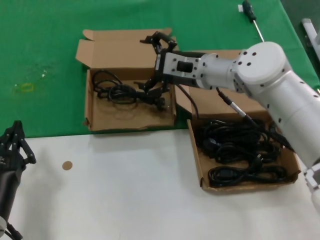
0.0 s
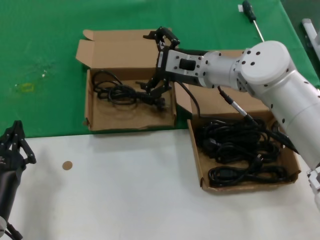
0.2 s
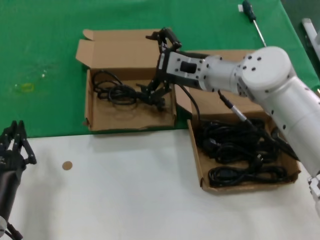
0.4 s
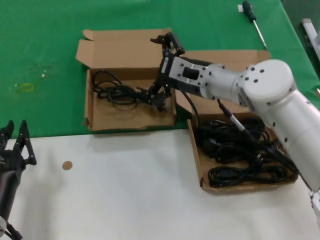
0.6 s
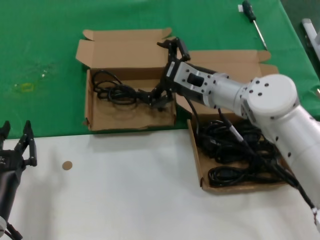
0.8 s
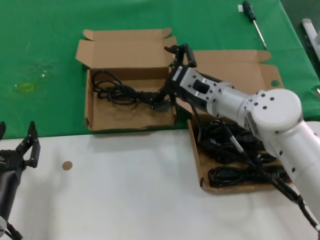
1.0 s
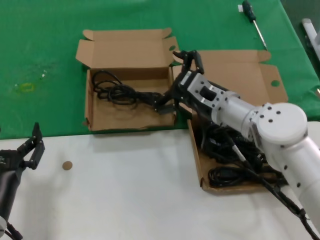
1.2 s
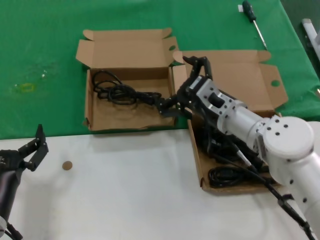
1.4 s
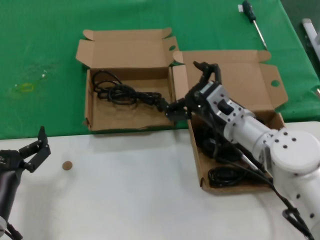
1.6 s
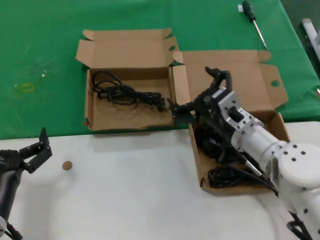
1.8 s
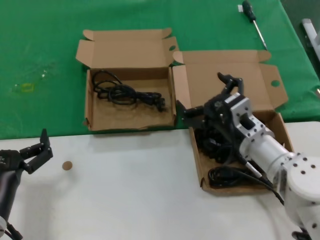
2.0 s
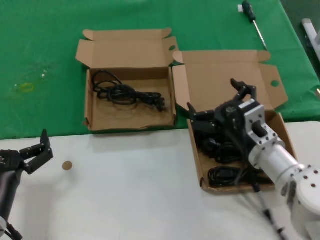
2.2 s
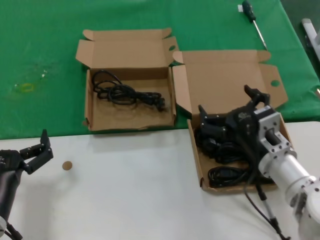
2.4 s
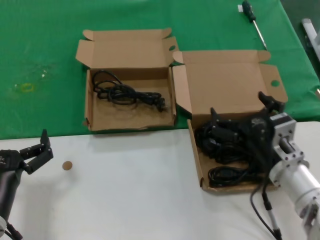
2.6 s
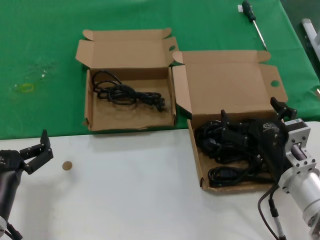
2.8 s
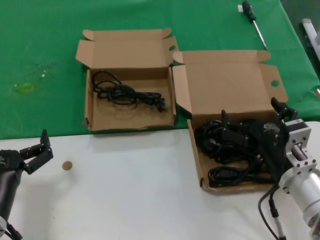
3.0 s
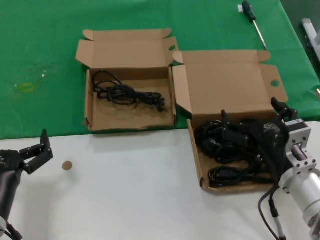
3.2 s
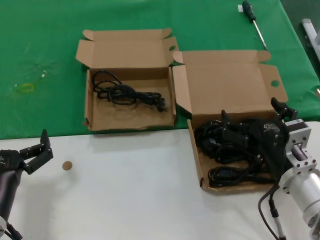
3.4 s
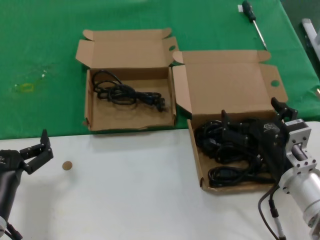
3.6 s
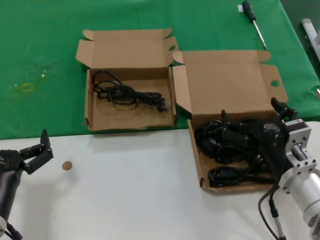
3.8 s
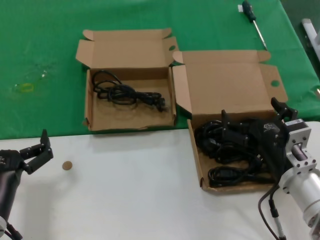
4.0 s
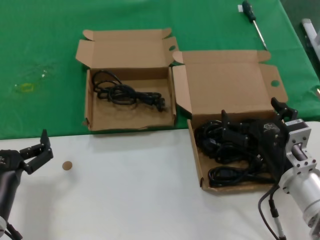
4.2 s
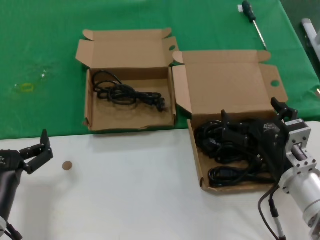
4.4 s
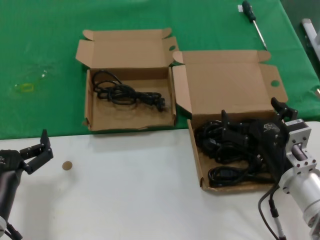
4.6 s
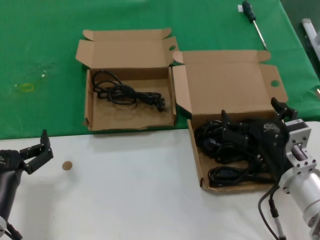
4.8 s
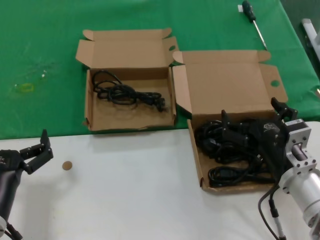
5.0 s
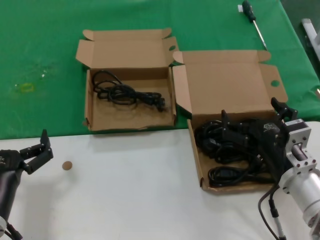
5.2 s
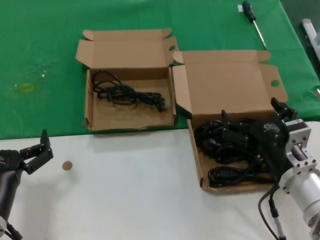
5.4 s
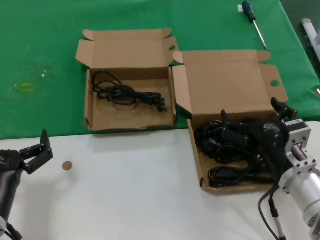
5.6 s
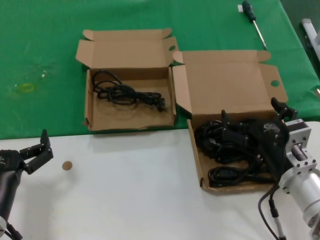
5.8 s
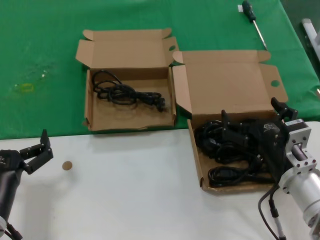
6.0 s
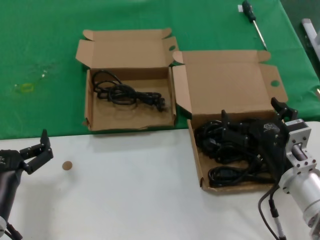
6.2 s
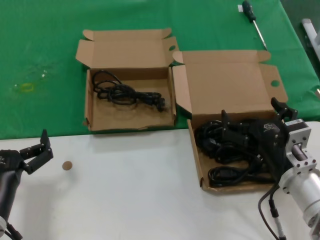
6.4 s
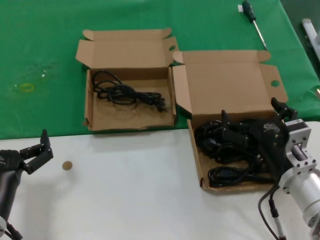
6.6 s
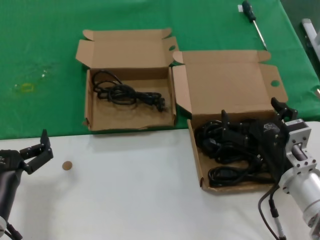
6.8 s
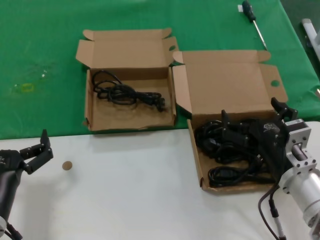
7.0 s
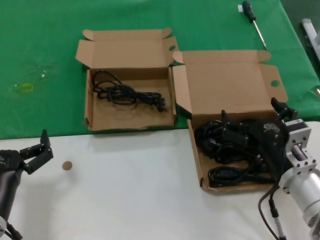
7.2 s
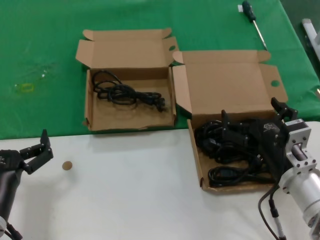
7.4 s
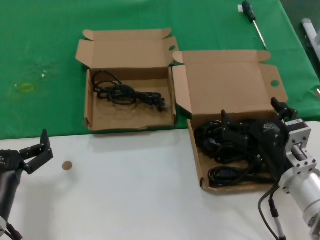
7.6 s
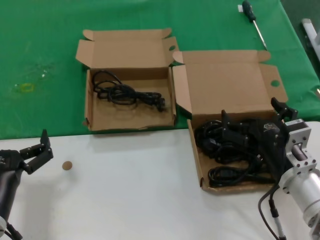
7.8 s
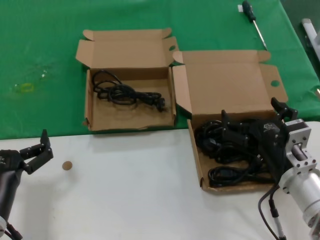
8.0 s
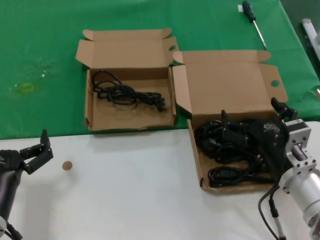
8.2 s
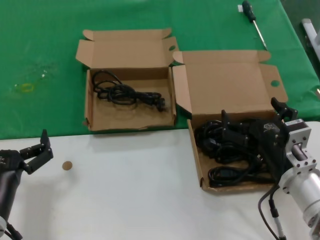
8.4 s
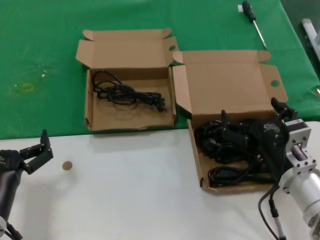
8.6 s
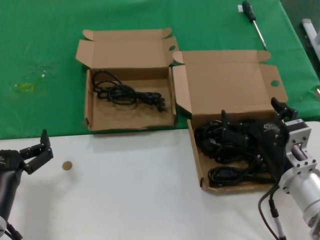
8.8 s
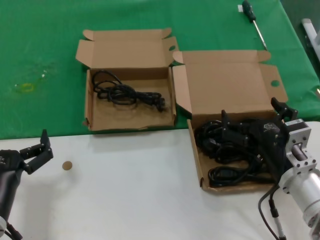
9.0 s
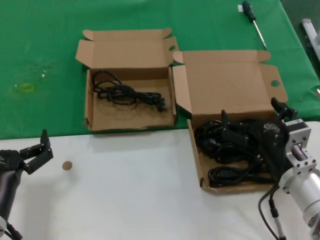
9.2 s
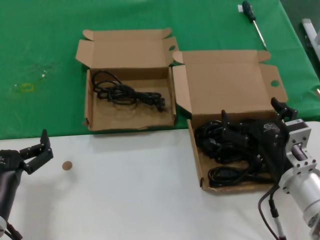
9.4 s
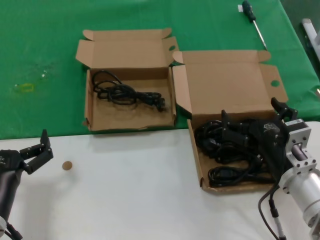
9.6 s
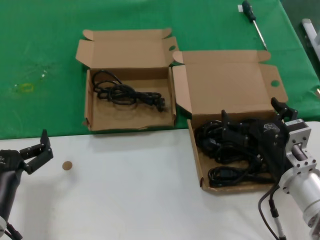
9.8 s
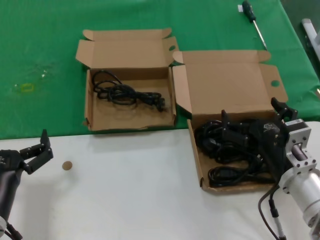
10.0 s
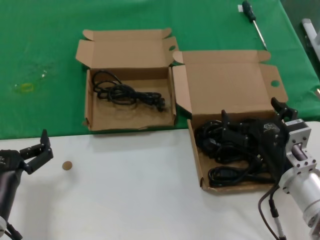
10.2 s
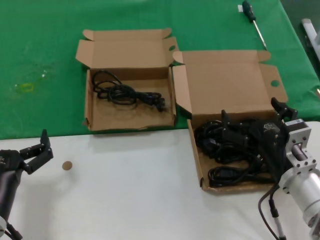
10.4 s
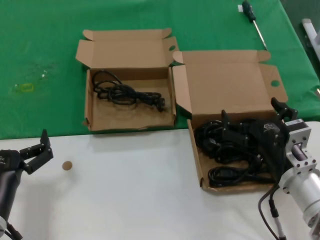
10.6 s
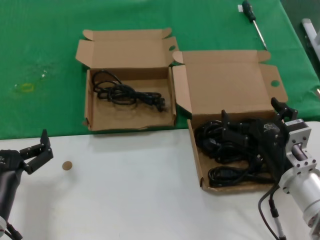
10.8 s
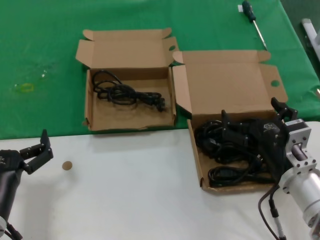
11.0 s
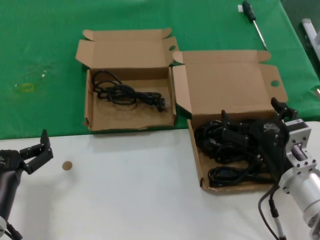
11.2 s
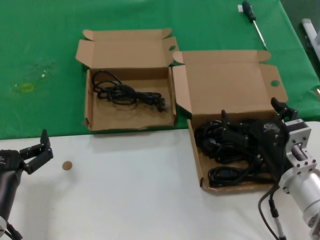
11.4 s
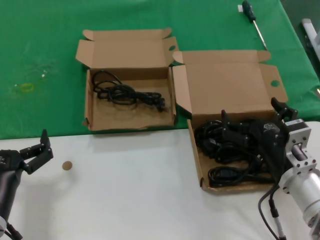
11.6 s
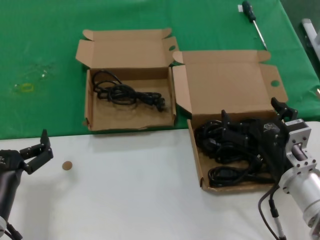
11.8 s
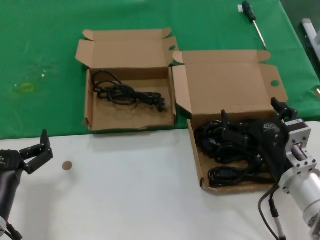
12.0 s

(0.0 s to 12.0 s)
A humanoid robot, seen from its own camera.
Task of the whole recording: take the parts from the box containing them and put them into an empty box.
0.0 s - 1.6 s: The right hand shifts about 15 cm backward and downward.
1.6 s - 3.0 s: The right hand shifts about 15 cm backward and to the right.
3.0 s - 12.0 s: Neither hand changes place.

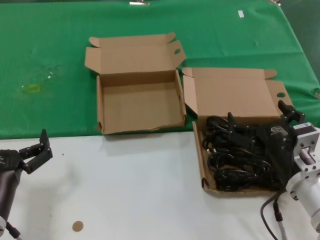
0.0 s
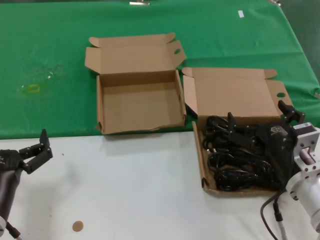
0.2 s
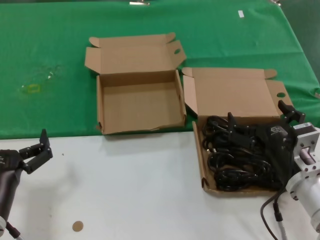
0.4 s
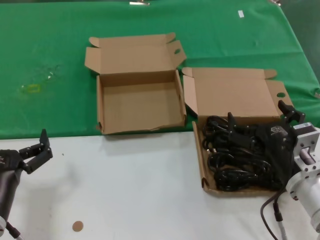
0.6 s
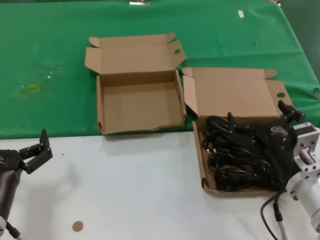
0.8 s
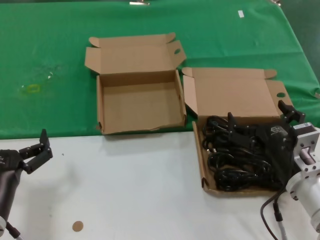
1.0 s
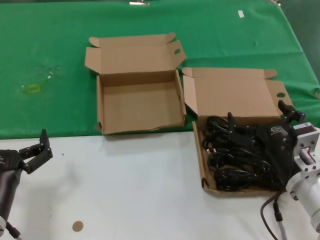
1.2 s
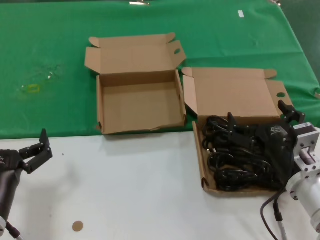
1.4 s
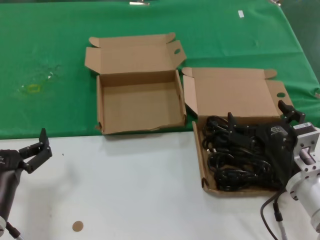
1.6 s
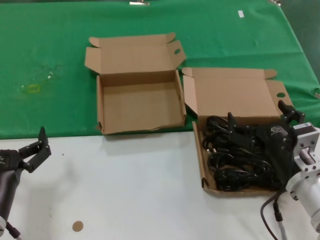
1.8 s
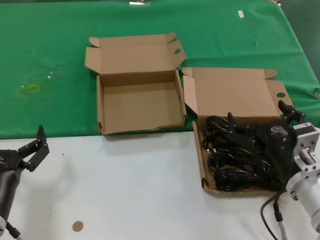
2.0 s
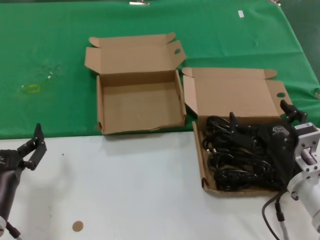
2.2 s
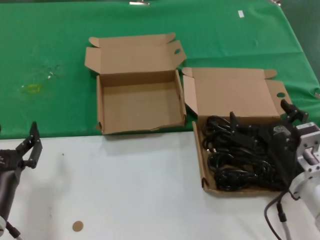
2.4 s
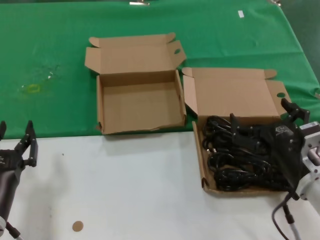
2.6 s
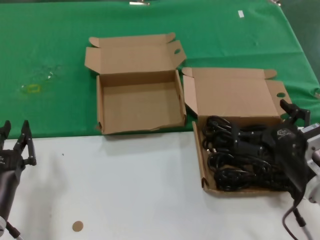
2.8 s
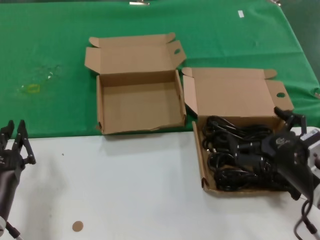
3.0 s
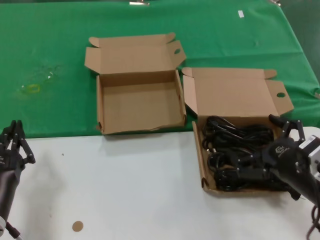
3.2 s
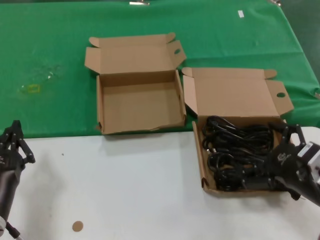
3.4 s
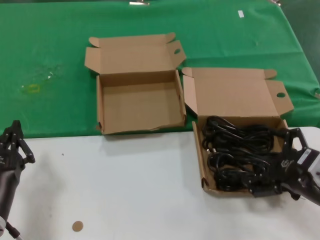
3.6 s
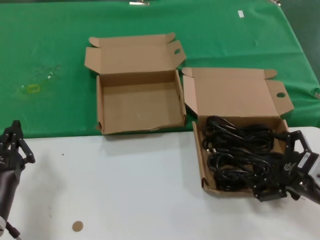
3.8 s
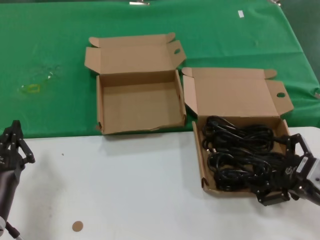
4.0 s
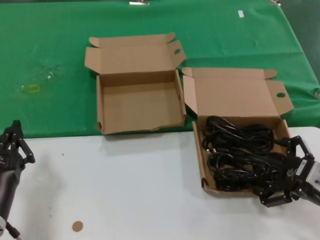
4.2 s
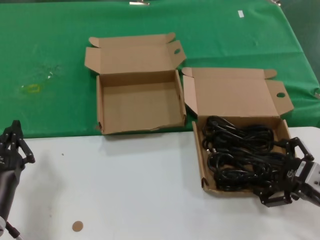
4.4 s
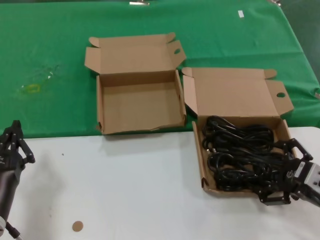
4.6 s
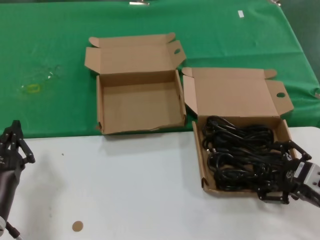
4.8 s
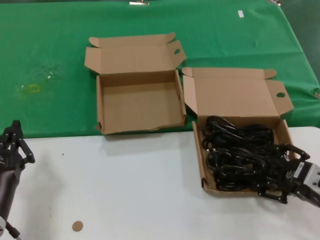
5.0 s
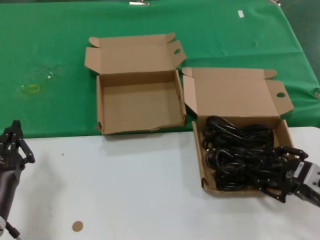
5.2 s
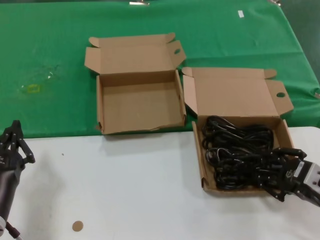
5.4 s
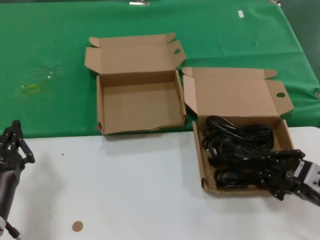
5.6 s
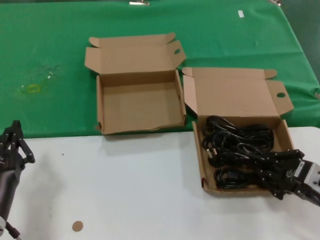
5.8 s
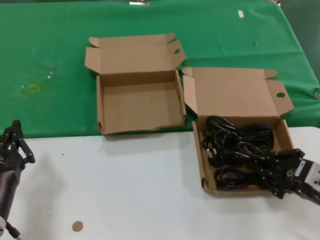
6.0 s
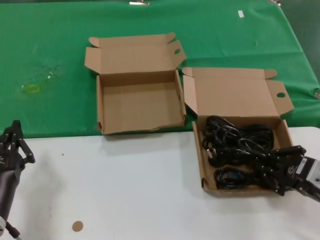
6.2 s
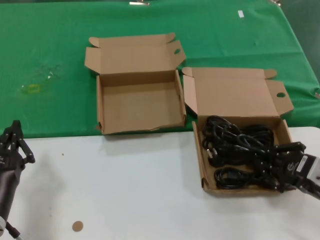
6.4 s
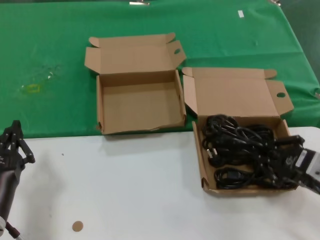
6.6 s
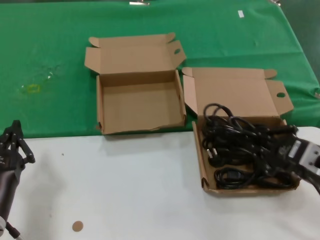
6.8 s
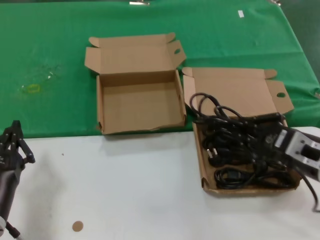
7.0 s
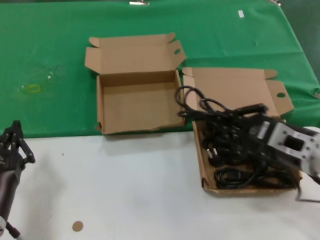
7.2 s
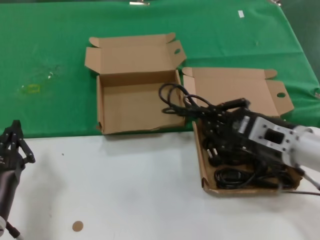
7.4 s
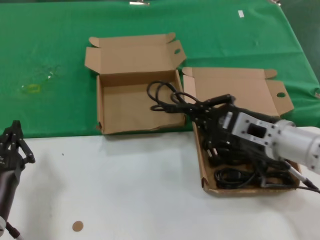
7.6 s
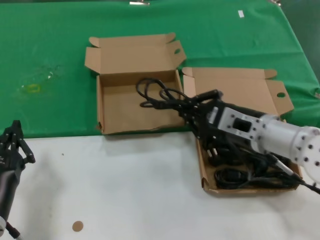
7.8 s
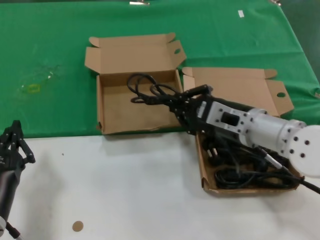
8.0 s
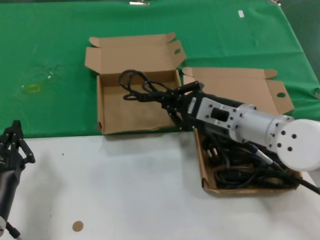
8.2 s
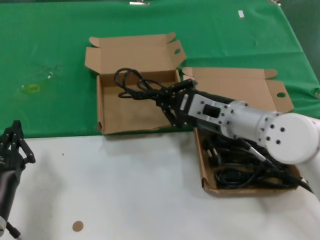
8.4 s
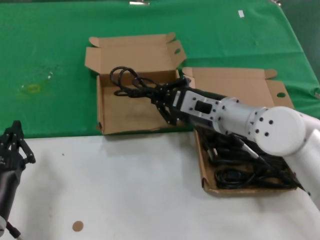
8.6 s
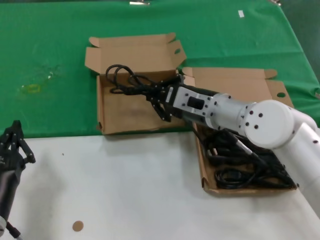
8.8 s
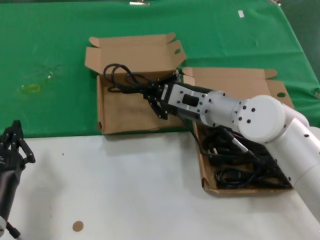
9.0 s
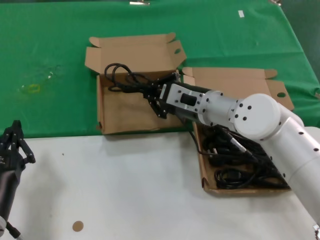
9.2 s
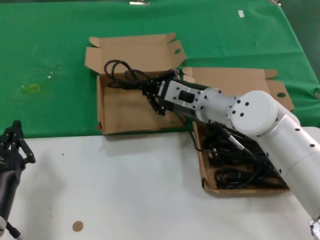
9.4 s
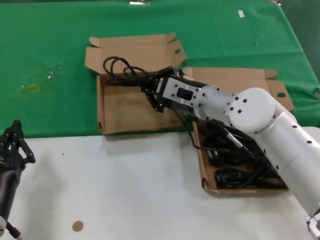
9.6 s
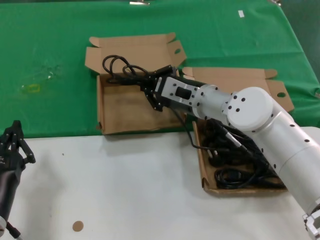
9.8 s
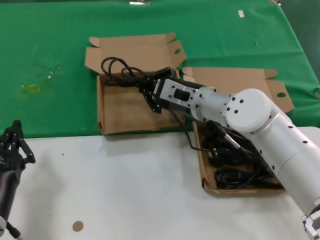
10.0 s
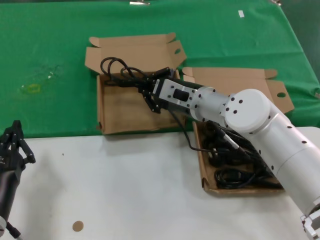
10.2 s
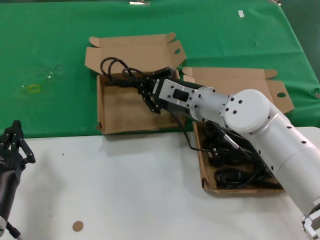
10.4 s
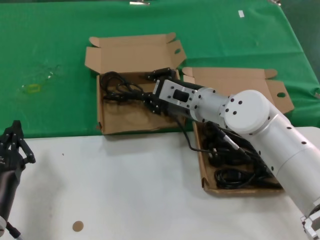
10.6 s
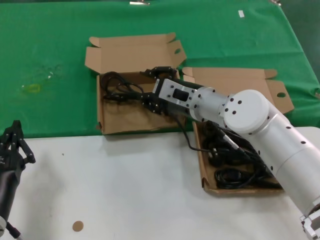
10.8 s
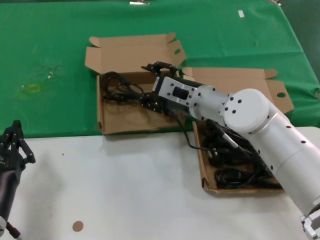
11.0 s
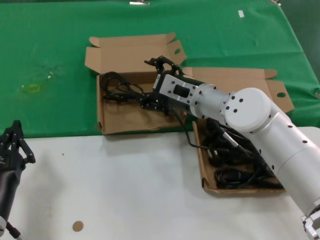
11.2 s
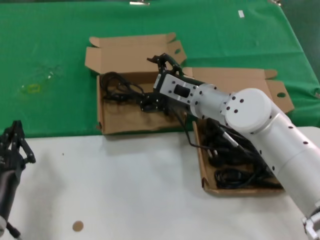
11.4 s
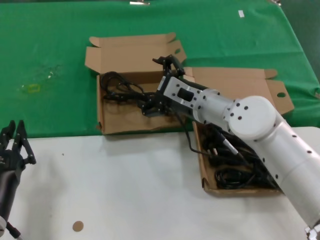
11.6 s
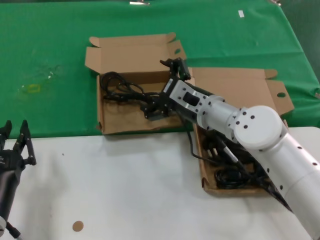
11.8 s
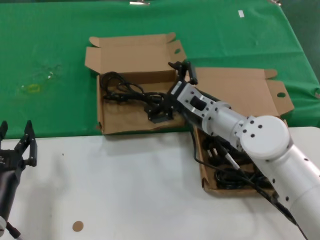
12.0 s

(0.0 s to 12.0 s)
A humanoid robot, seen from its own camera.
Task of the whole recording: take the parts from the box containing them and put them into an empty box.
Step, 0.0 s - 5.6 s: Grasp the data cable.
Step, 6.0 s - 10.6 s: Place the data cable in the another box.
0.0 s - 1.6 s: Neither hand changes place.
1.6 s - 3.0 s: The right hand ends up approximately 5 cm from where it was.
3.0 s - 4.4 s: The right hand shifts some 5 cm to the right.
4.4 s - 6.0 s: Both hands stay about where they are.
6.0 s - 7.6 s: The right hand moves to the left, forward and upward, roughly 15 cm.
7.6 s - 9.0 s: The right hand travels forward and to the left by some 15 cm.
9.0 s - 12.0 s: The hands make only small movements.
